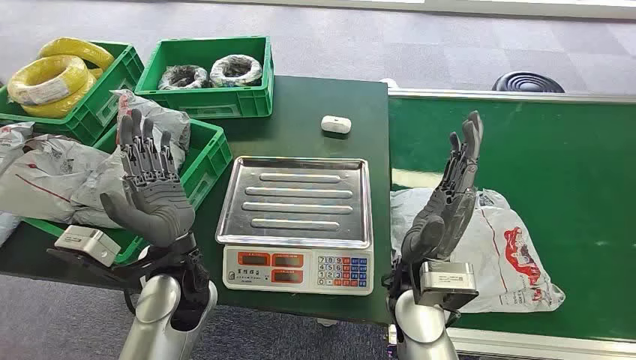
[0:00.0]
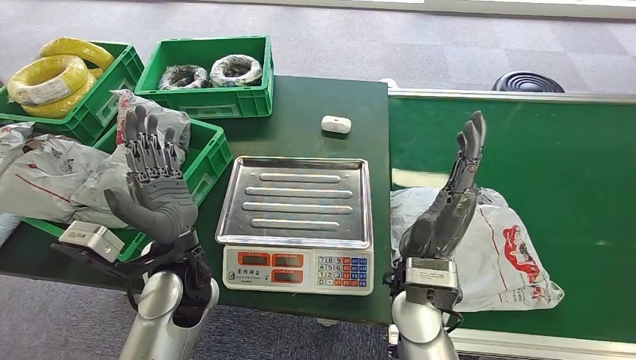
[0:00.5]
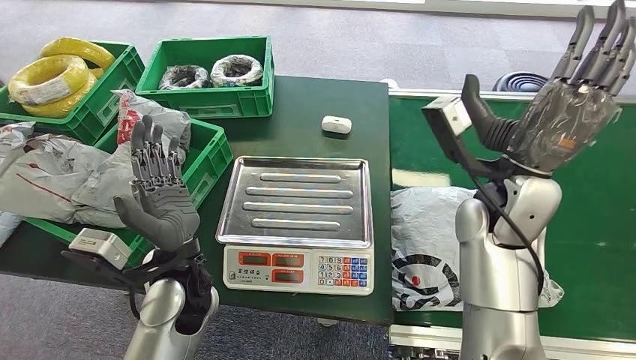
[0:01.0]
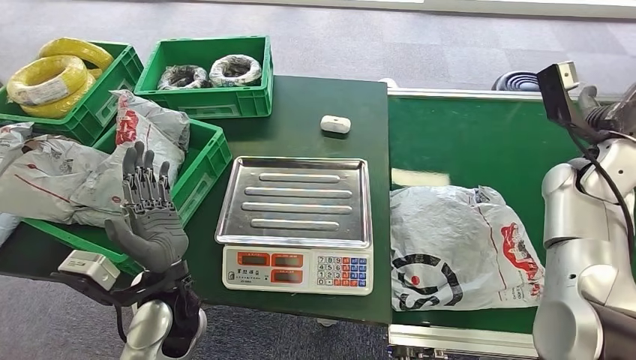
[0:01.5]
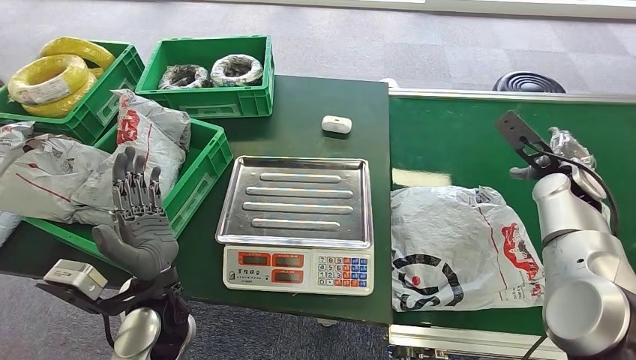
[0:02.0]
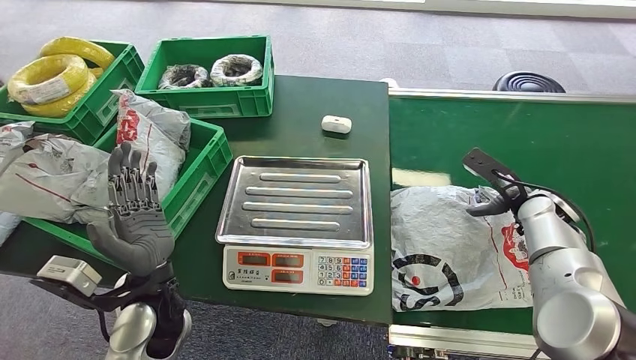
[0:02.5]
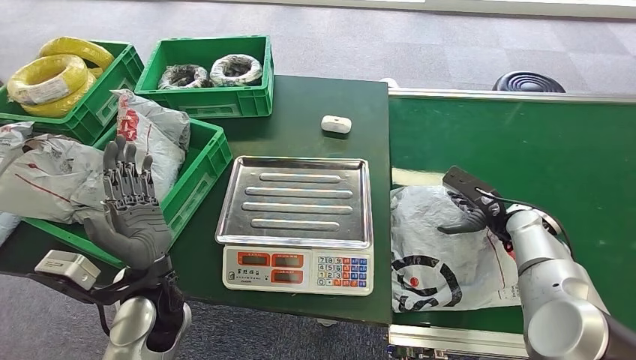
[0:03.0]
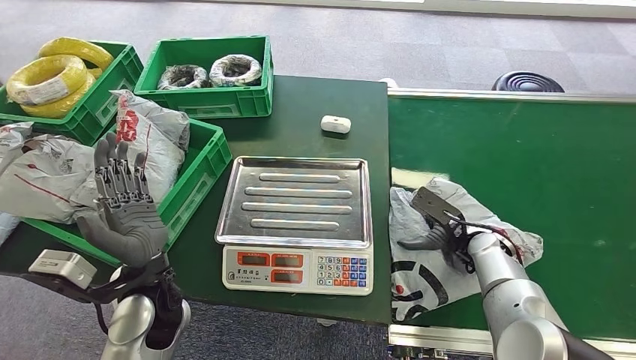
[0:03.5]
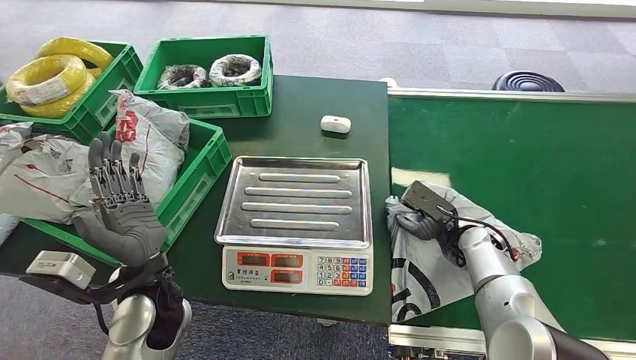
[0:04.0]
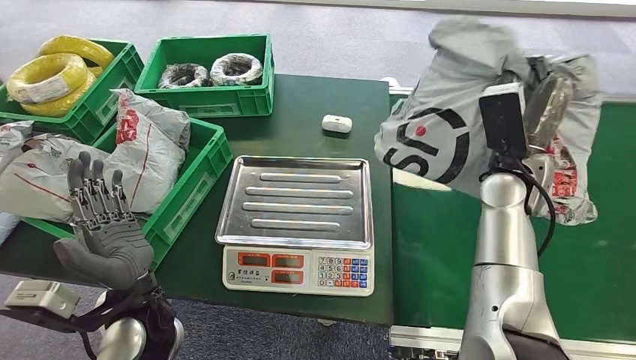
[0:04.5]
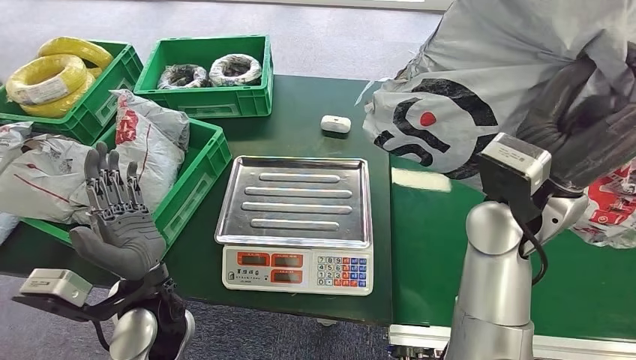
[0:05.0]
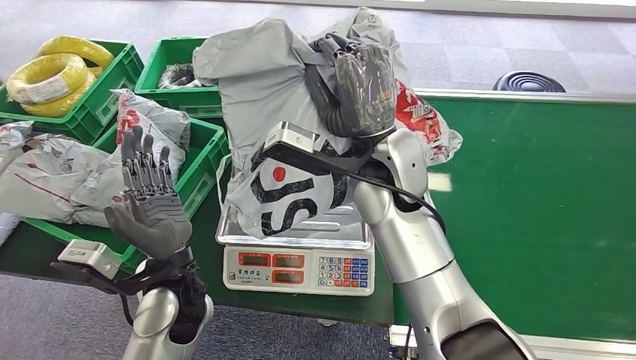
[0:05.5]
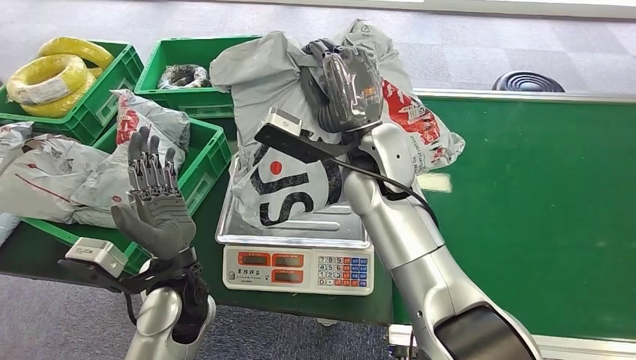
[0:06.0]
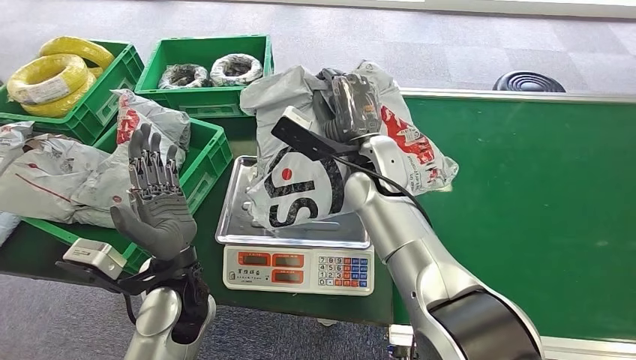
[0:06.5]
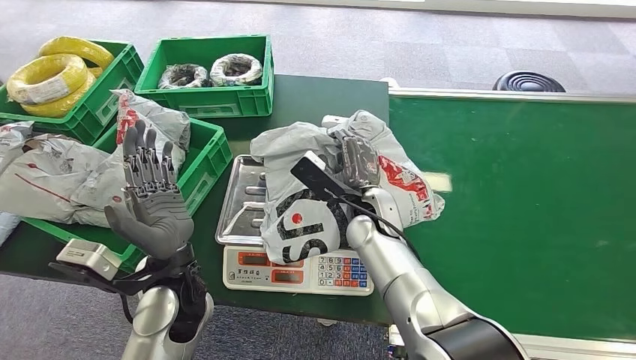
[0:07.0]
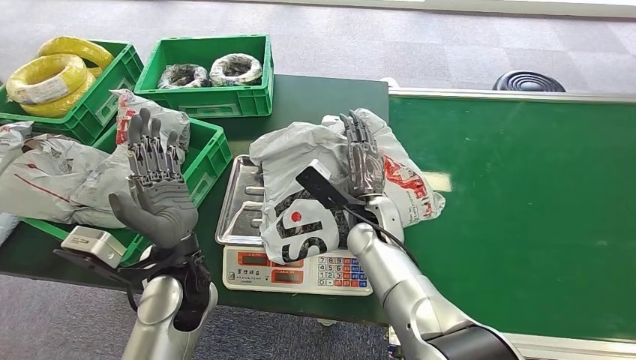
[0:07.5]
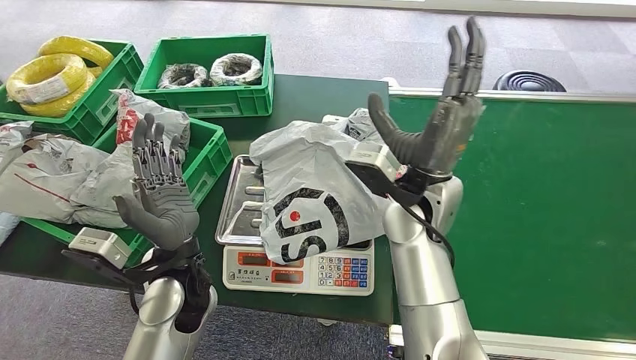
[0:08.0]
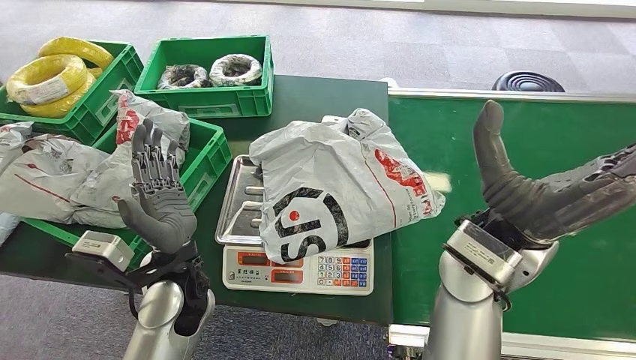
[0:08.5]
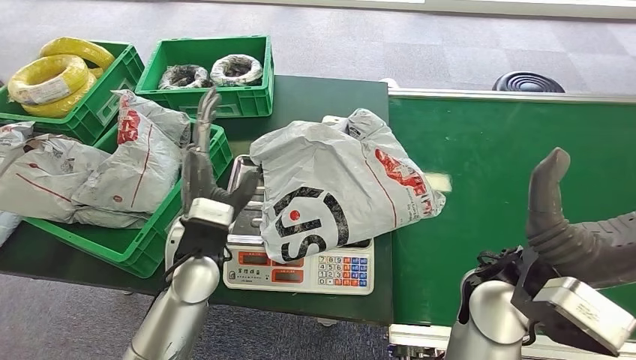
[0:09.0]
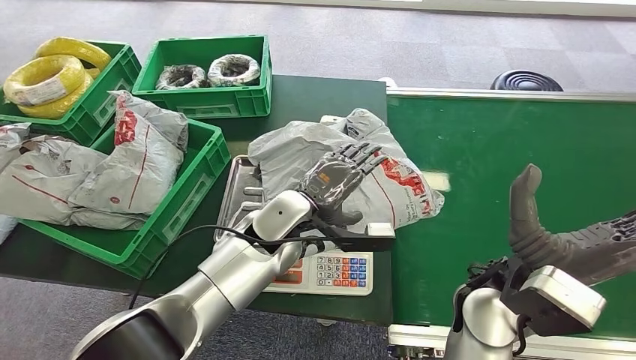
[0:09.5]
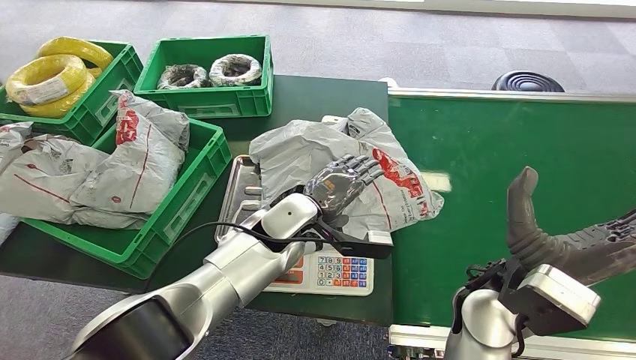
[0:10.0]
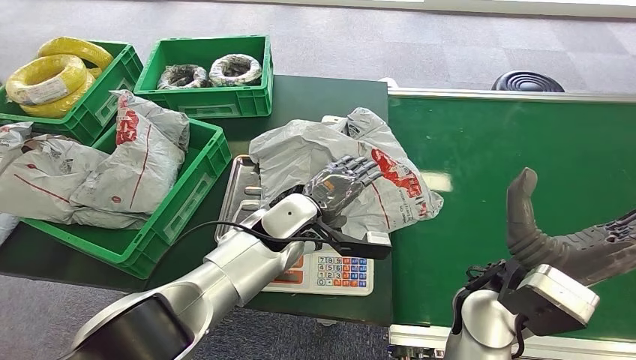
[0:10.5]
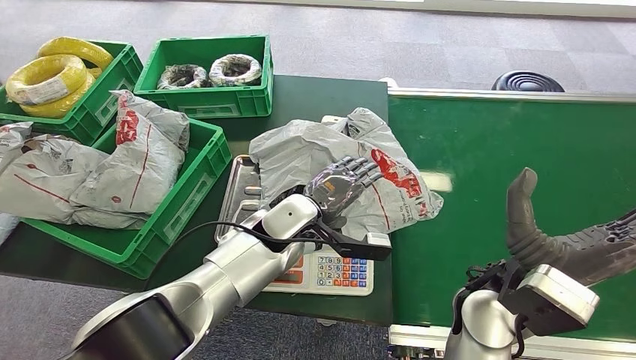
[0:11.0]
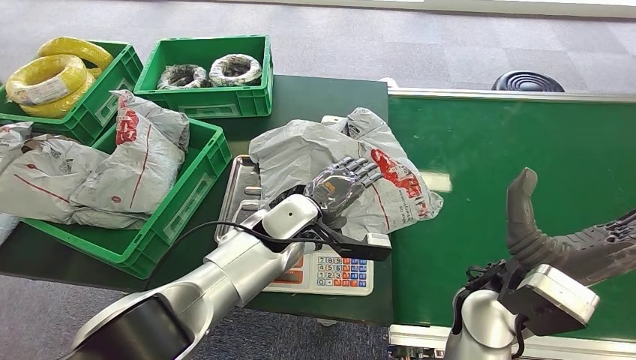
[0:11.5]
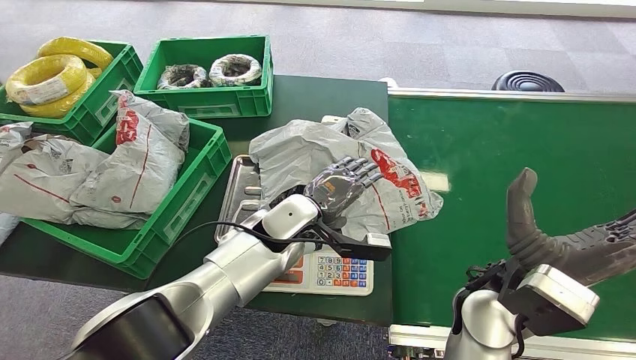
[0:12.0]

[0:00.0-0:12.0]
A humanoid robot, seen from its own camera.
Step, 0:00.0 to 0:04.5: Pick up the package from the conveyor belt.
Step, 0:05.5 to 0:08.0: Place the package onto the inbound machine.
0:10.0 to 0:12.0: Both hands stay put.

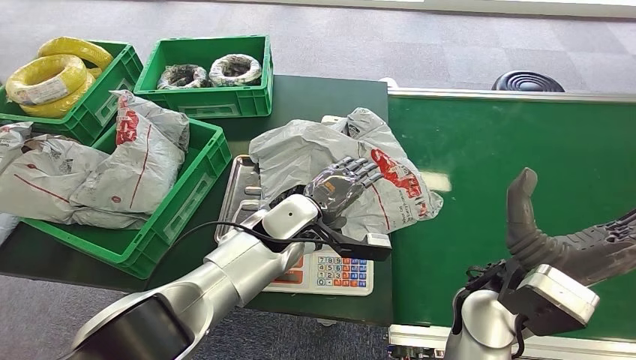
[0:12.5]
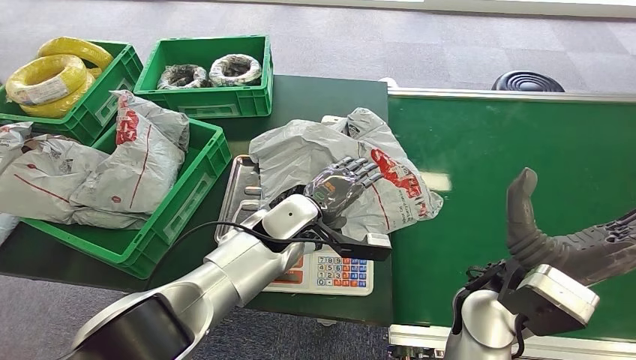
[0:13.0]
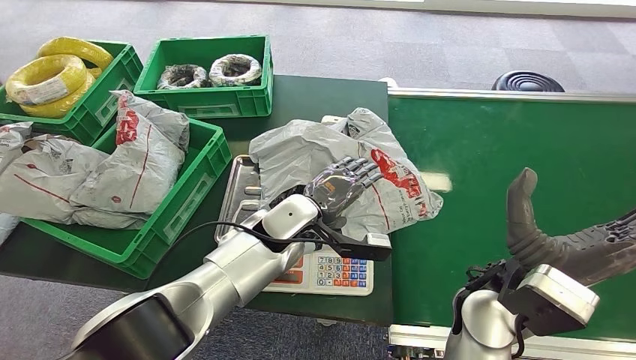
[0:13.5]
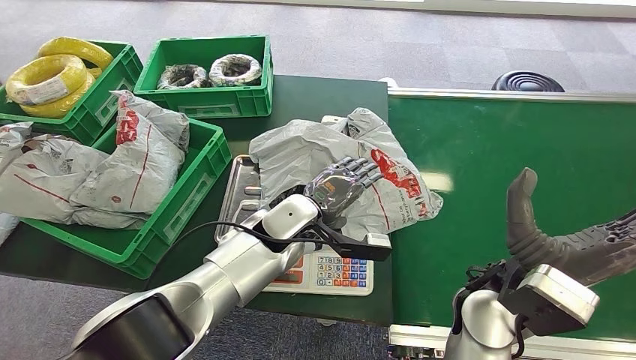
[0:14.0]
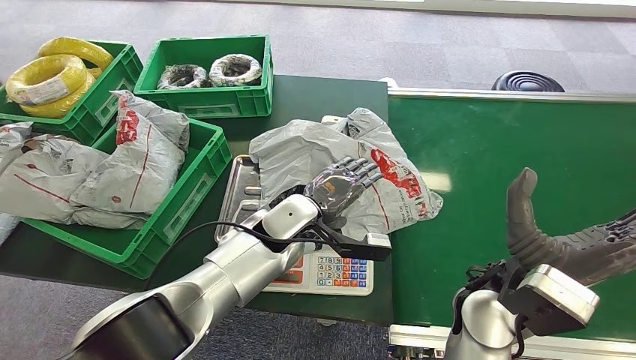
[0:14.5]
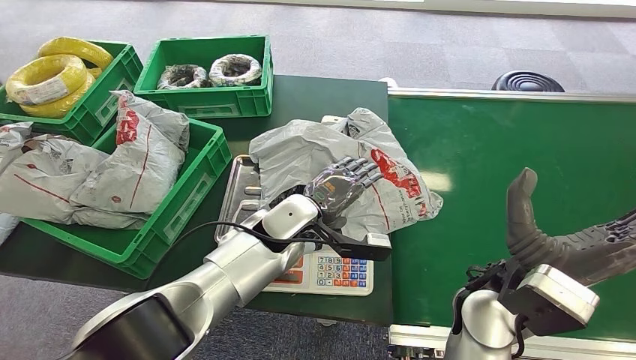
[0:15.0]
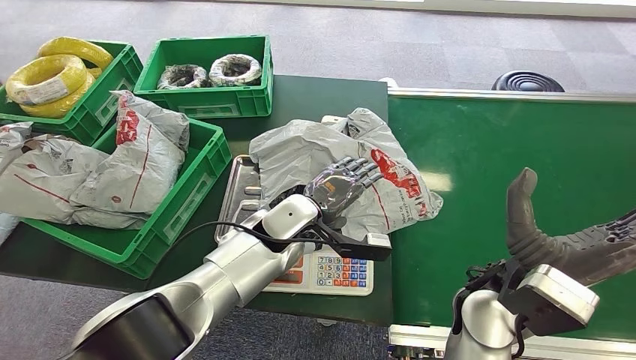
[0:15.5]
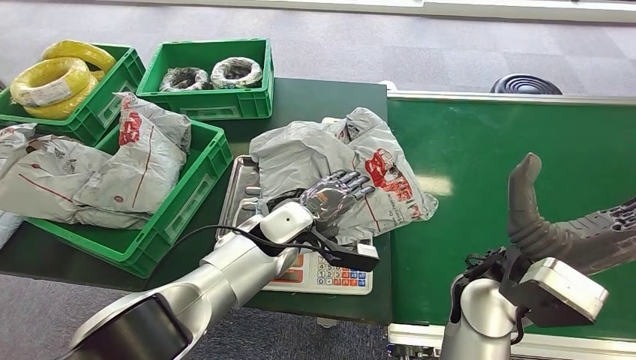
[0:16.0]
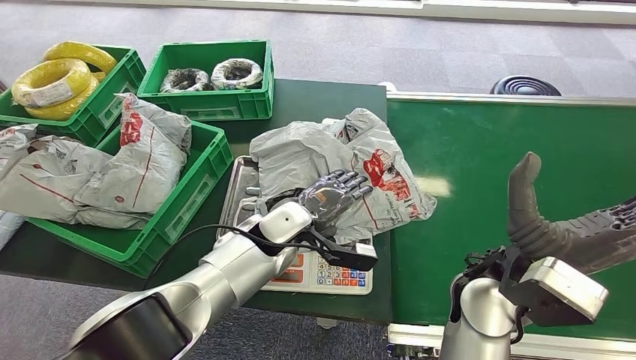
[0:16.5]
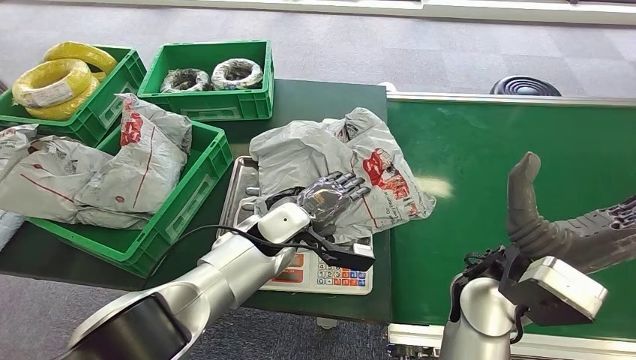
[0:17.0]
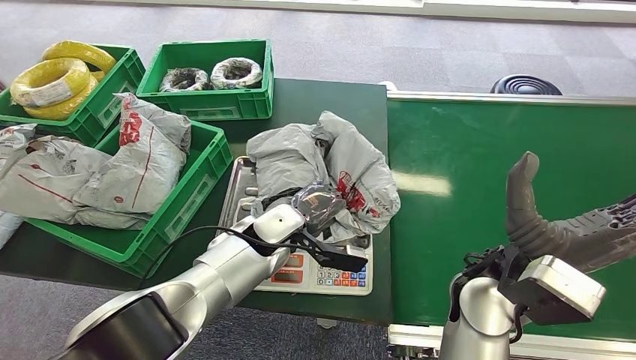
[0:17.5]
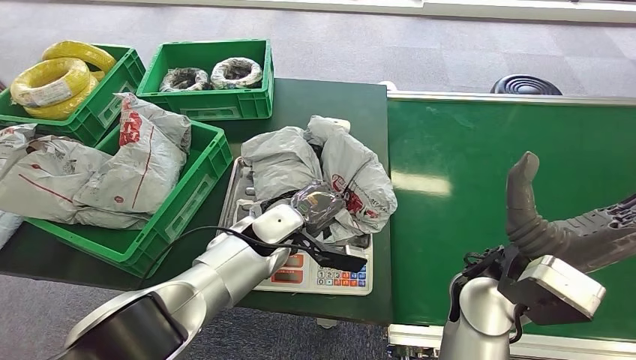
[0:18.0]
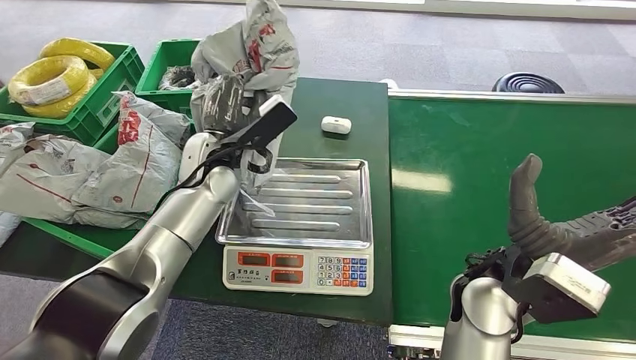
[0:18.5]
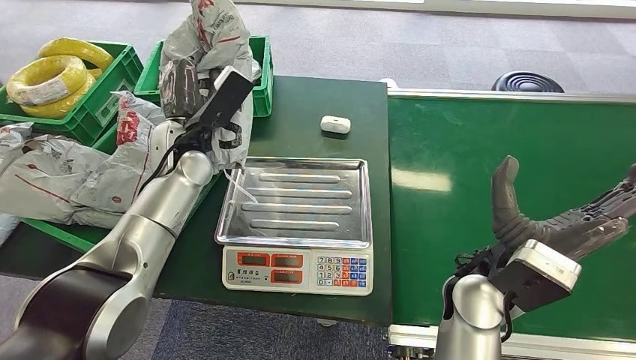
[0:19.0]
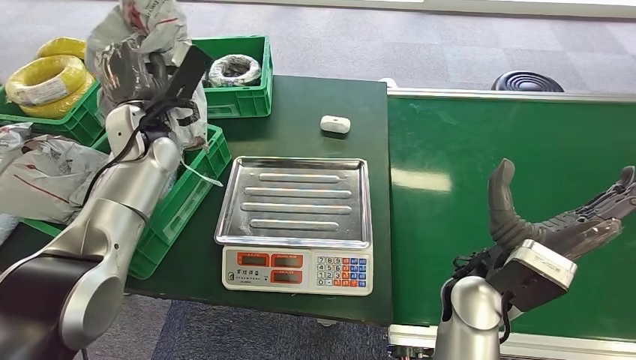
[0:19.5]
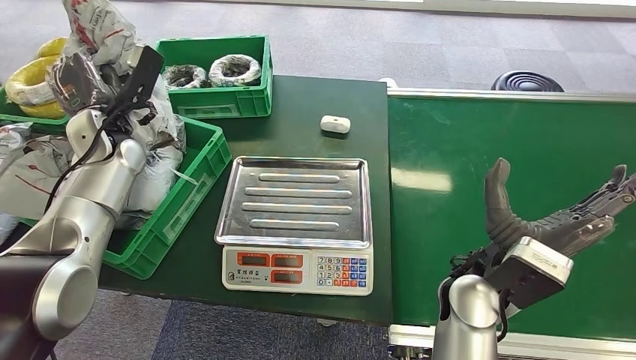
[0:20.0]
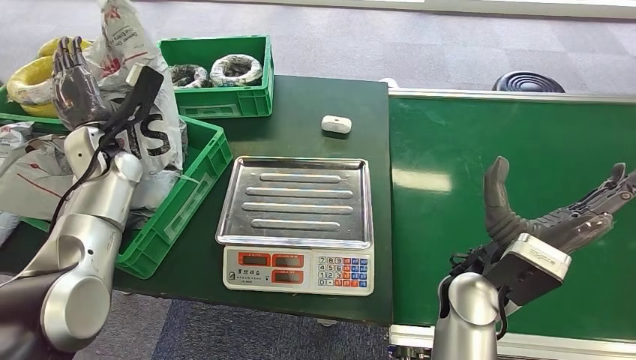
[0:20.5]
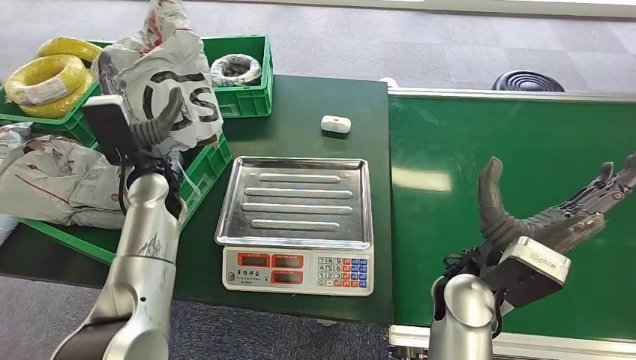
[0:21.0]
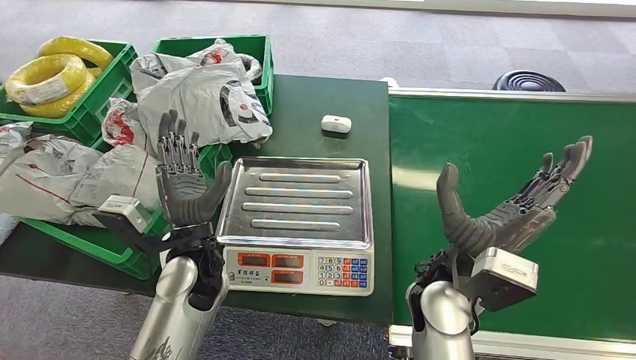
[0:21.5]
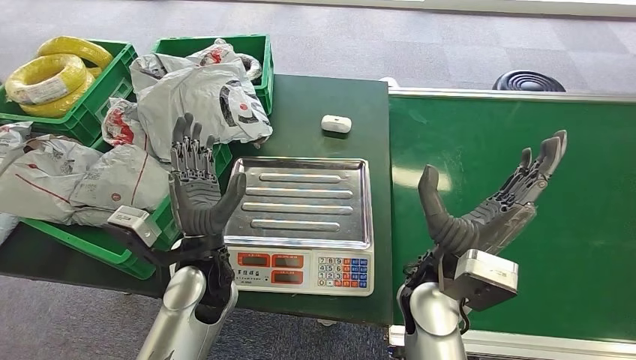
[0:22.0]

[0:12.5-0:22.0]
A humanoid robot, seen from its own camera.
Step, 0:12.5 to 0:19.0: Pick up the package from the inbound machine.
Step, 0:19.5 to 0:22.0: Place the package into the parcel locker.
0:12.5 to 0:14.5: The two hands keep their place.
0:16.5 to 0:18.0: Both hands stay about where they are.
